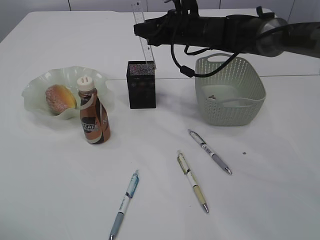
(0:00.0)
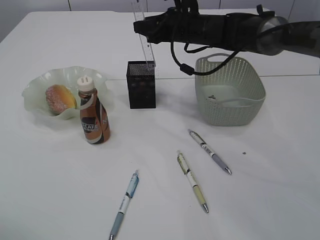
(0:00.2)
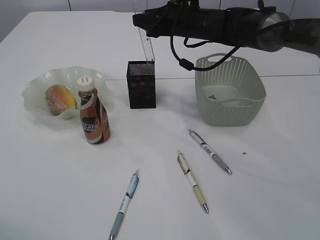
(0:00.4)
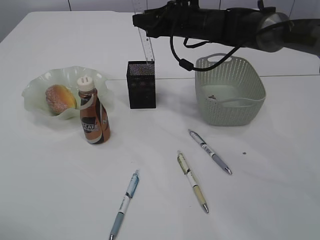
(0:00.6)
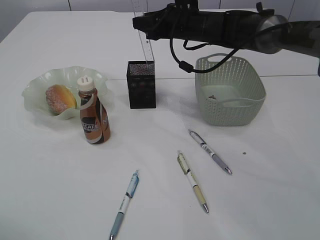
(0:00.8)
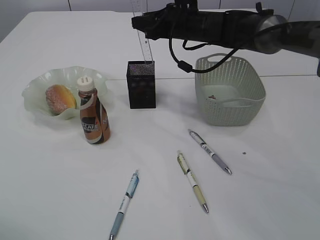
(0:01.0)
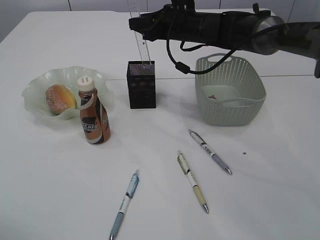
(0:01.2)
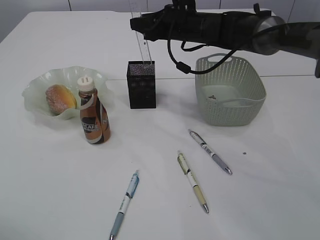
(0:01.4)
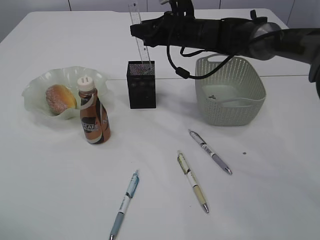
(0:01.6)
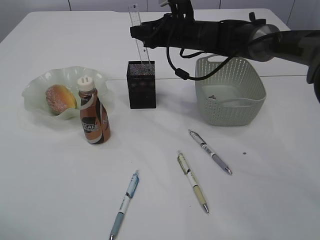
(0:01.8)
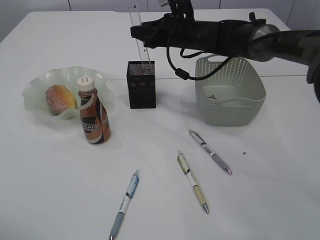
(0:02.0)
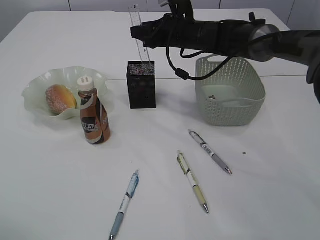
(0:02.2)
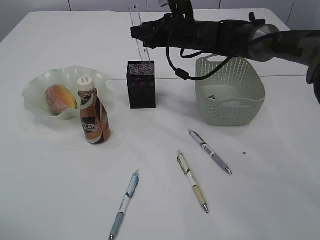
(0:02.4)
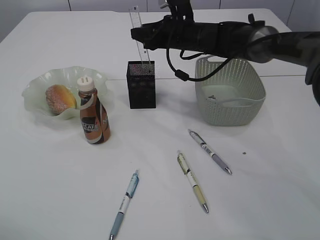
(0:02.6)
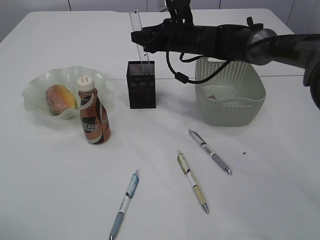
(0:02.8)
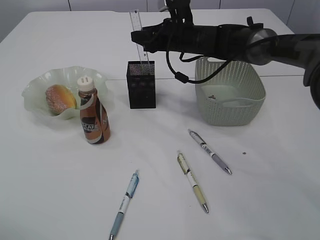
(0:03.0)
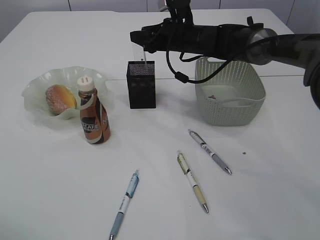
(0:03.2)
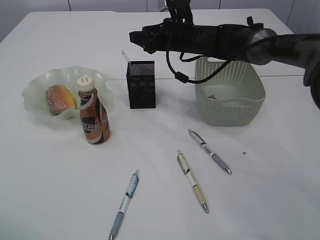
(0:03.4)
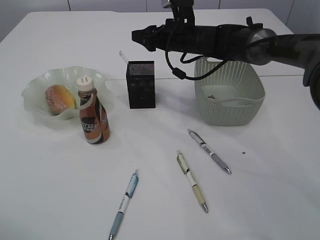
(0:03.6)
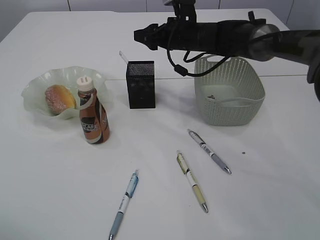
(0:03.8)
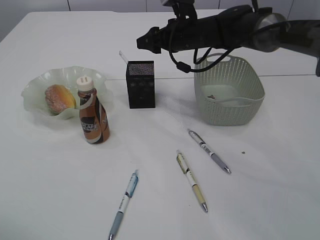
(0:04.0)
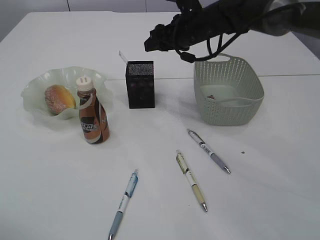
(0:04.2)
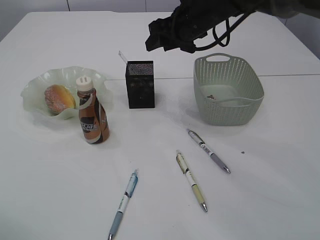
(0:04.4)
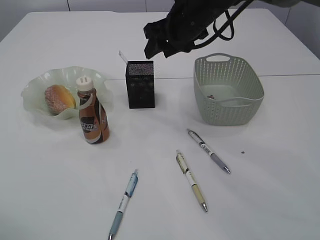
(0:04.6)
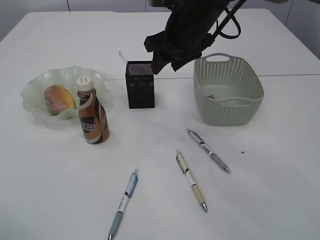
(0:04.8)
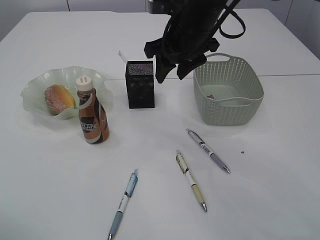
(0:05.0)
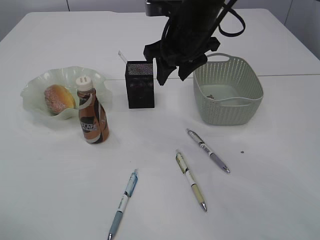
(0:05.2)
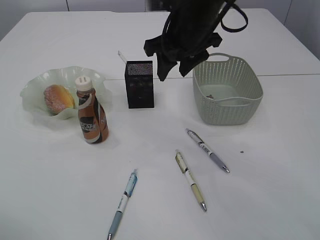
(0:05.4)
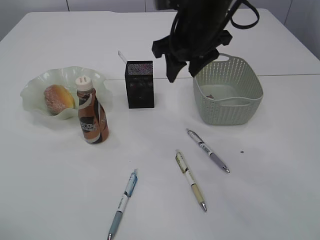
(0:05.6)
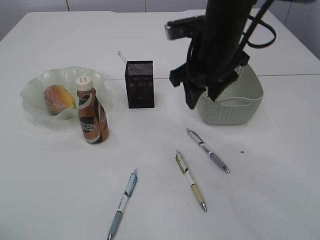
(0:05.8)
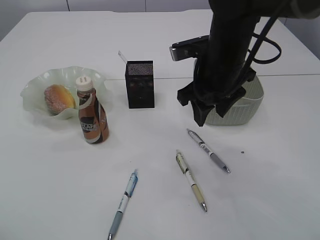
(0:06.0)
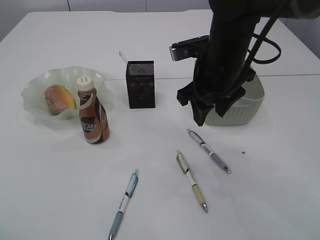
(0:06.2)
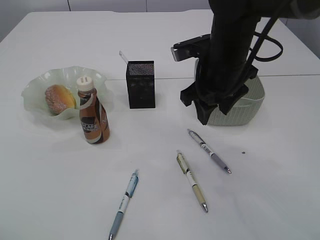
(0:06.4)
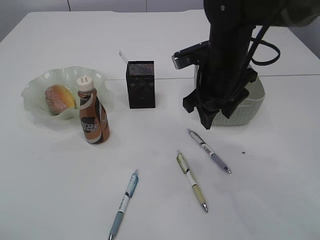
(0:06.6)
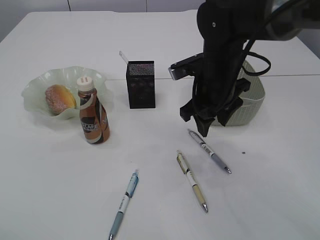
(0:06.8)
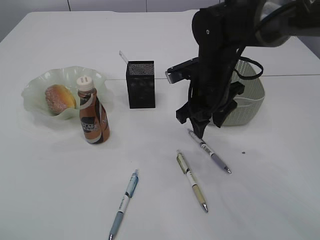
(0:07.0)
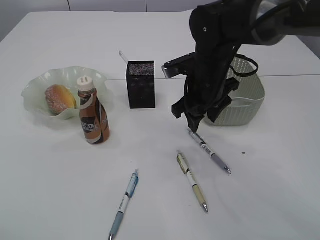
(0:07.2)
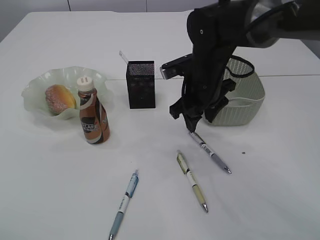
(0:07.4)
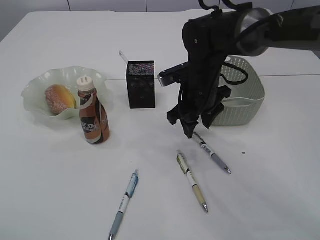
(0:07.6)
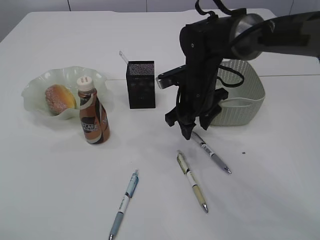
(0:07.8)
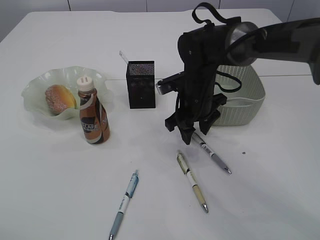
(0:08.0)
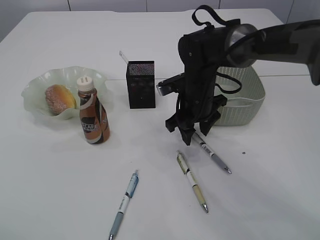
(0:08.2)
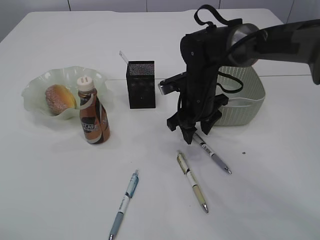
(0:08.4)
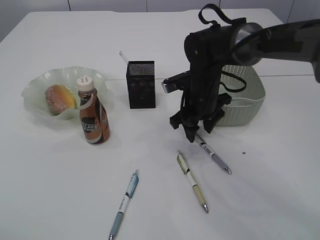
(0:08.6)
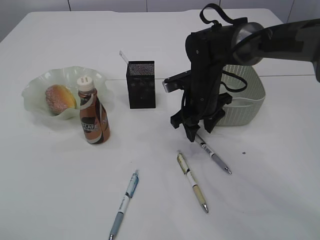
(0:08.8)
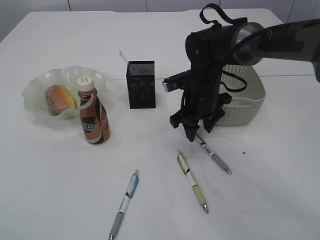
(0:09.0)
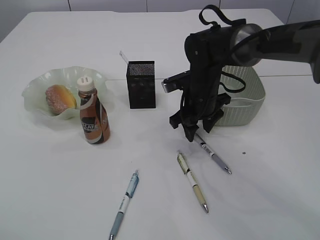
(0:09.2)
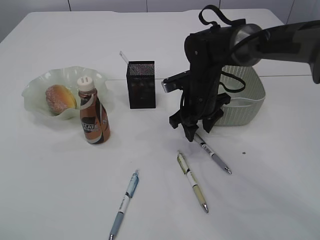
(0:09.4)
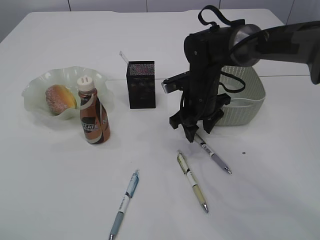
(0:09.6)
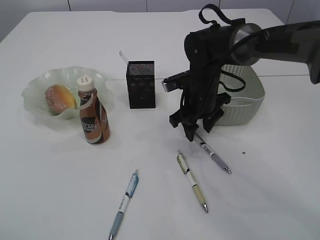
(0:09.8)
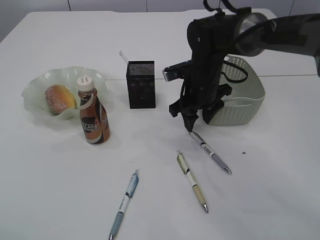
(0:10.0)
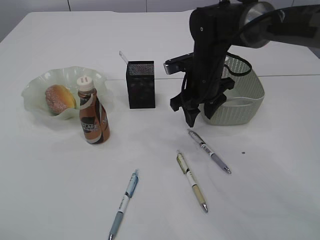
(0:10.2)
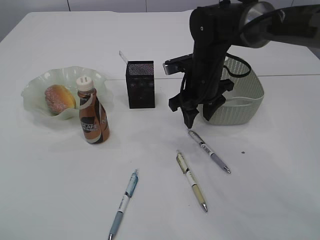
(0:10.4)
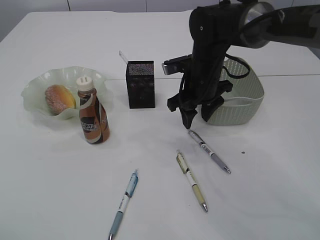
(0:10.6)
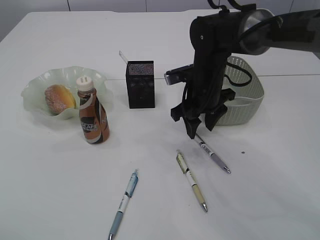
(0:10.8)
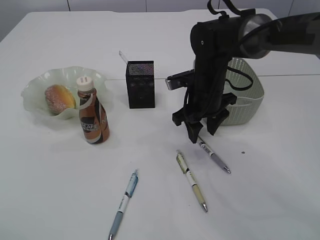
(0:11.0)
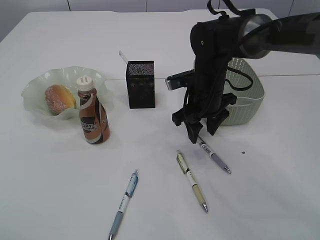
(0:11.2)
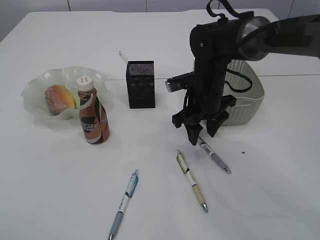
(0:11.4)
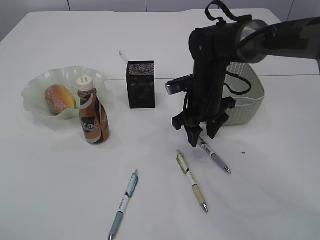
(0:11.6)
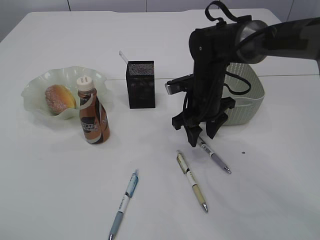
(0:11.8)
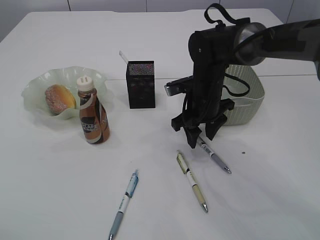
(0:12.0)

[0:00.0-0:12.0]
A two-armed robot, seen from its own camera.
Step, 0:00.0 to 0:04.4: Place the ruler into the pen holder.
0:00.0 to 0:01.6: There are only small adjustments of the grippers.
0:01.6 to 0:03.0: Both grippers stay put.
0:03.0 to 0:04.4: The right gripper travels upward by about 5 cm.
0:04.4 to 0:06.0: The right gripper heads backward, covering some 10 cm.
0:06.0 to 0:07.6: The right gripper shifts approximately 5 cm downward.
0:07.6 to 0:12.0: The grippers stay close to where they were, moving slightly.

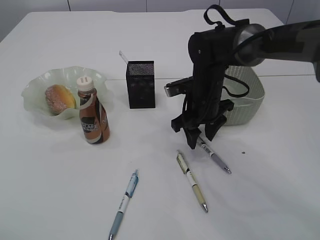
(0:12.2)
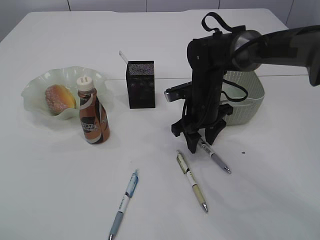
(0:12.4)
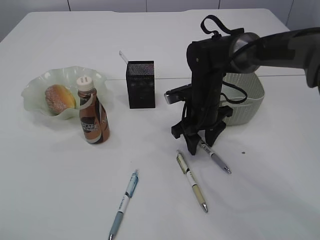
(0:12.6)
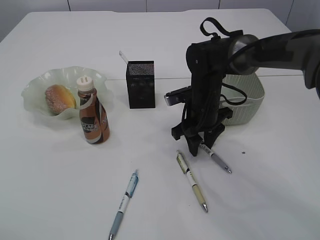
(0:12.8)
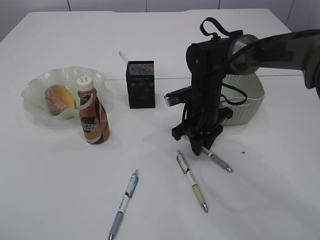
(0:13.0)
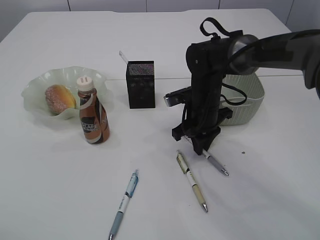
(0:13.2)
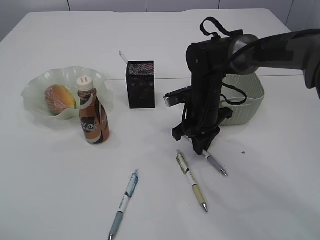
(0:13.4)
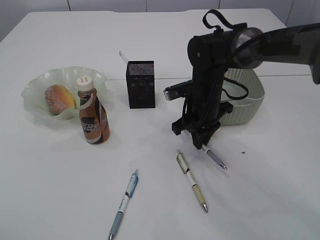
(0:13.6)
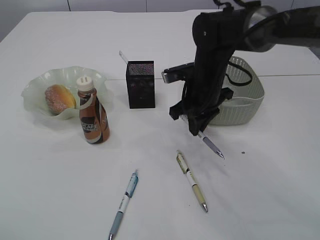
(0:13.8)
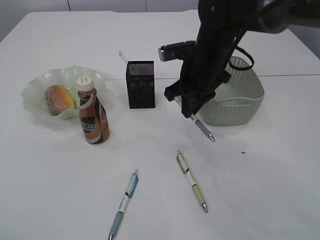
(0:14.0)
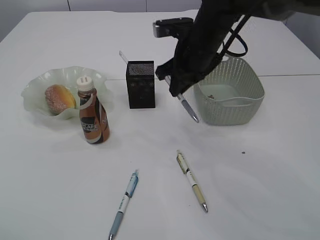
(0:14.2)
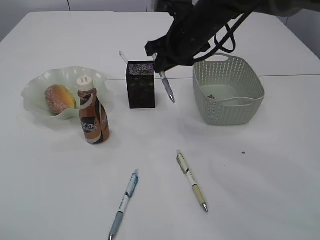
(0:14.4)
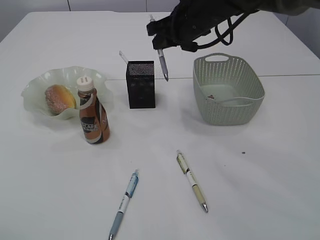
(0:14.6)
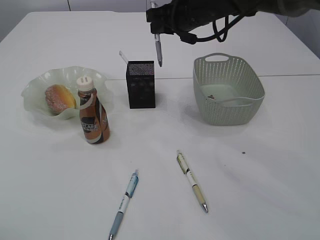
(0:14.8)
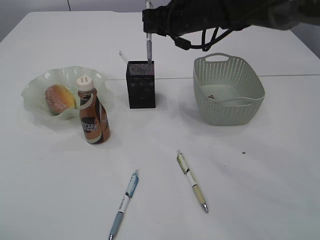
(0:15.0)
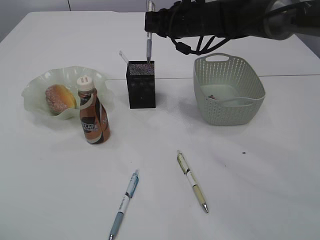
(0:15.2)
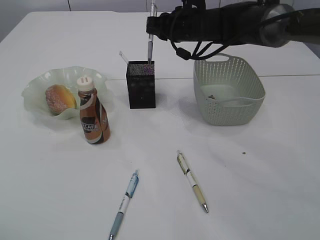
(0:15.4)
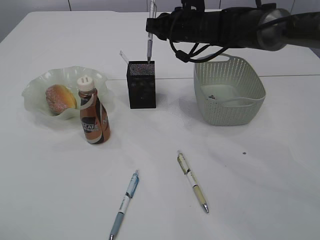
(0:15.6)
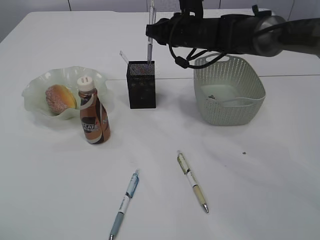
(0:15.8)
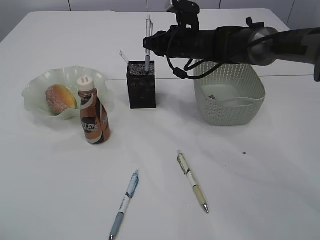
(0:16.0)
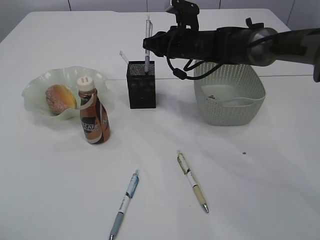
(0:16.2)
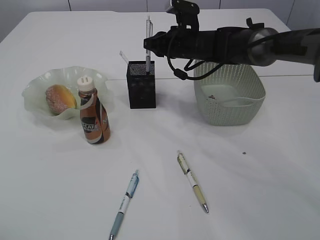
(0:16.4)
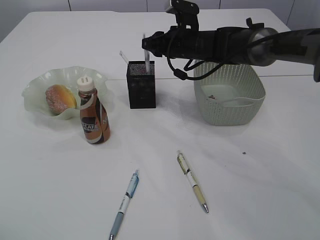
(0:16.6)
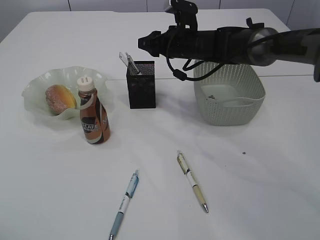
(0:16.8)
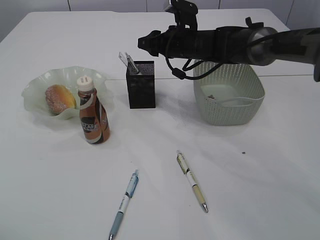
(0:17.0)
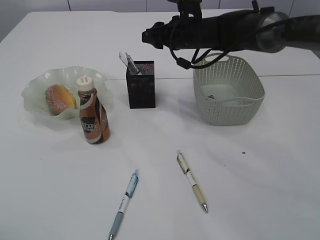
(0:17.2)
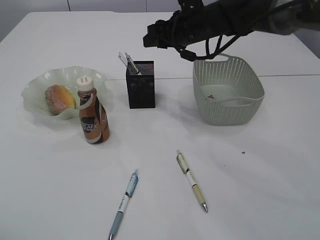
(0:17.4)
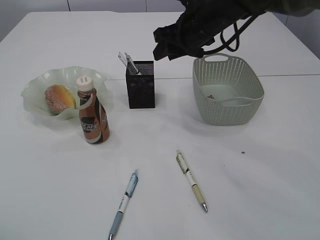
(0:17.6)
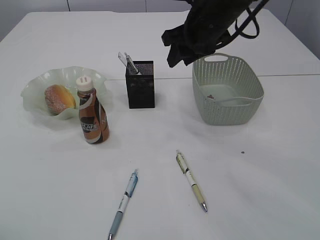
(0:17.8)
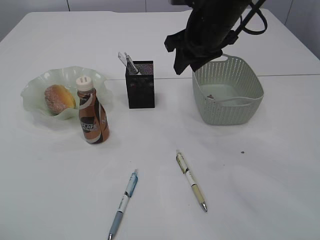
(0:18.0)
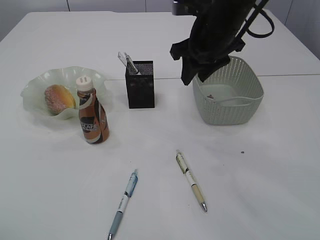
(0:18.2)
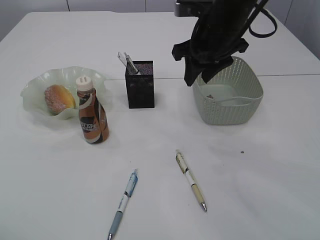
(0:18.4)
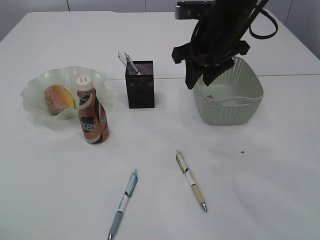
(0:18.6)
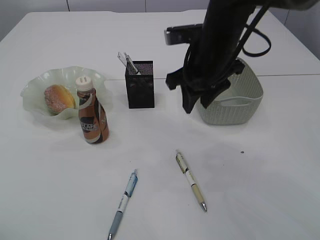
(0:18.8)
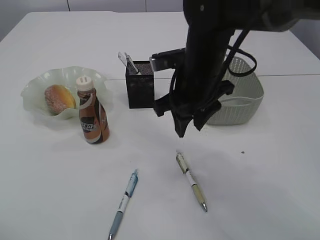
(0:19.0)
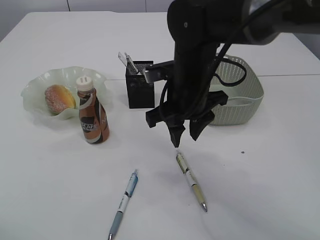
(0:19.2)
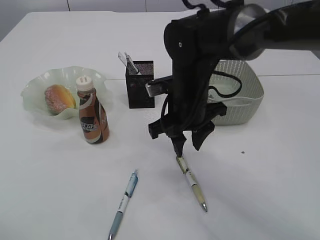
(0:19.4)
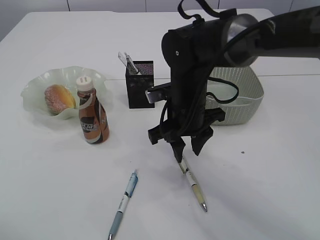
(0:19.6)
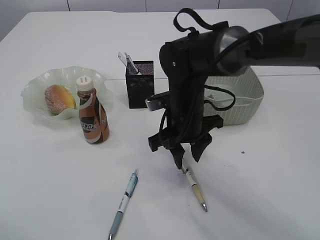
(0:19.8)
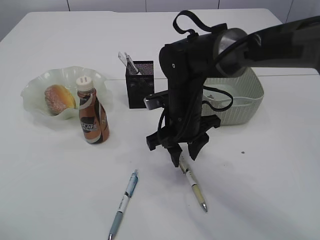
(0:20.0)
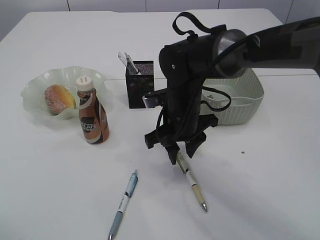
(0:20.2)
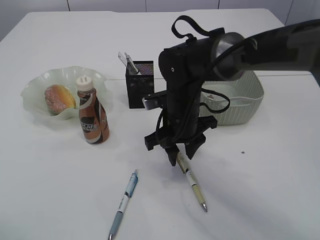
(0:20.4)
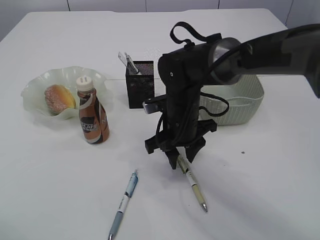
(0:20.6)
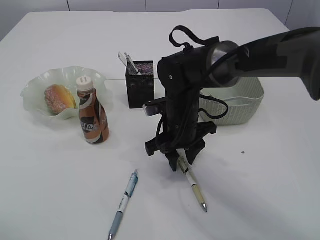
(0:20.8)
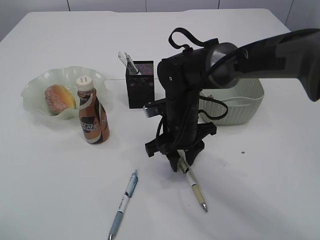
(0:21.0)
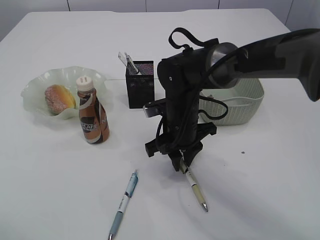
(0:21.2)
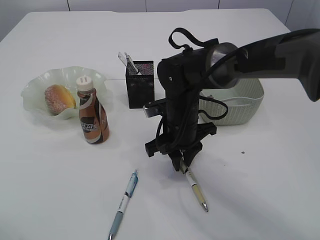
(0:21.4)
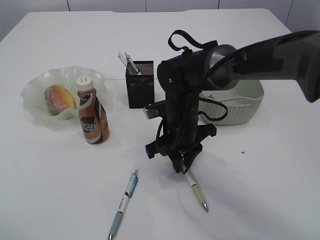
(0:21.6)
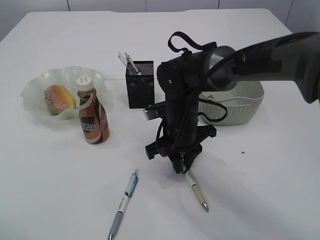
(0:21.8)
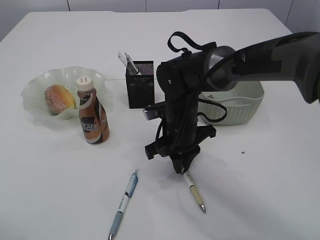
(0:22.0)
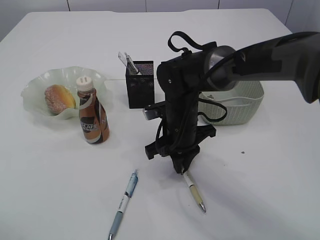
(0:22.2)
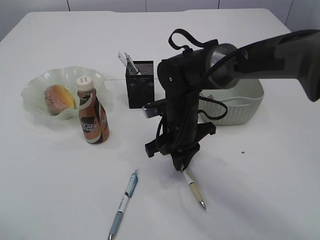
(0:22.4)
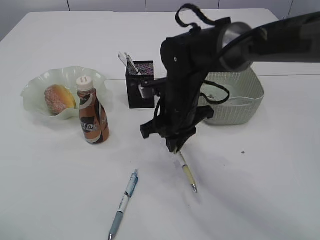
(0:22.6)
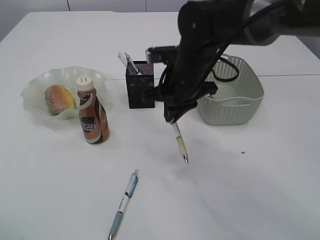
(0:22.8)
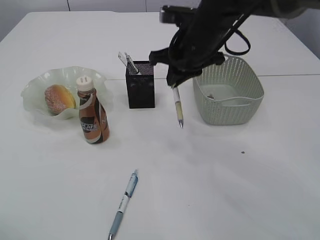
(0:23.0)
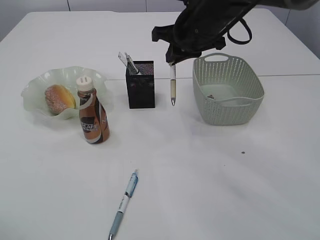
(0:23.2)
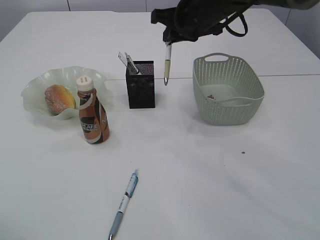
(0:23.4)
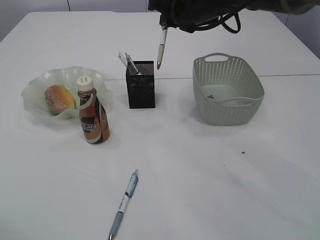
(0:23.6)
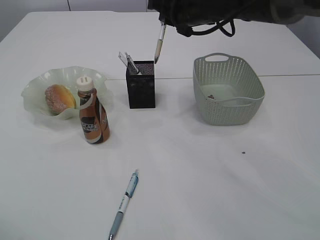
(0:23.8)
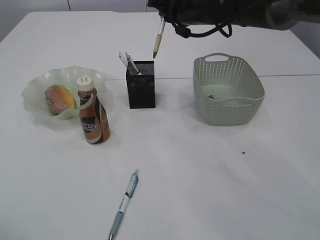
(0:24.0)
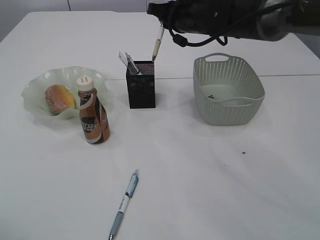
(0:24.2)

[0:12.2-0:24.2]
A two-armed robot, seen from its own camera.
Step, 0:12.2 to 0:14.2: Pick up the pen with right arm.
Step, 0:14.4 to 0:17.2: Place the pen into the pen holder.
Step, 0:17.4 to 0:22.8: Pick up the pen with right arm.
0:12.2 to 0:13.8: The right gripper closes its fingers.
0:13.8 to 0:15.2: The right gripper travels forward and upward by some 10 cm.
0:15.2 to 0:16.6: The right gripper is displaced downward by about 5 cm.
0:16.6 to 0:18.2: The right gripper moves backward and upward, some 15 cm.
0:18.2 to 0:19.8: The right gripper goes some 15 cm downward, to the left and backward.
0:19.8 to 0:22.6: The grippers make only small movements.
0:22.6 to 0:24.2: The right gripper moves forward and upward, roughly 15 cm.
